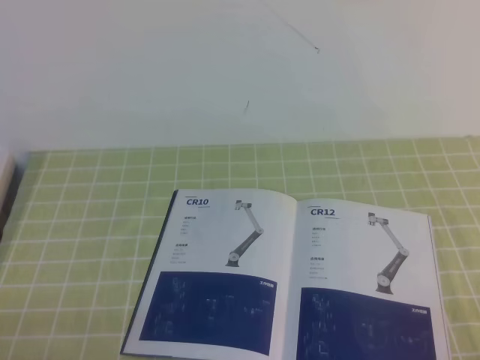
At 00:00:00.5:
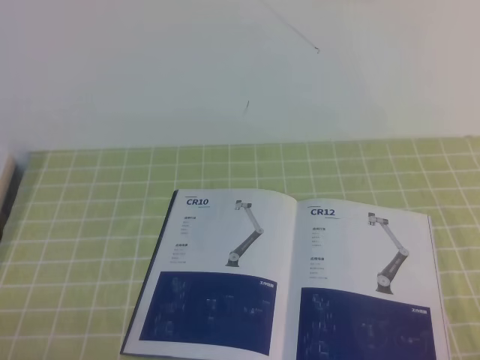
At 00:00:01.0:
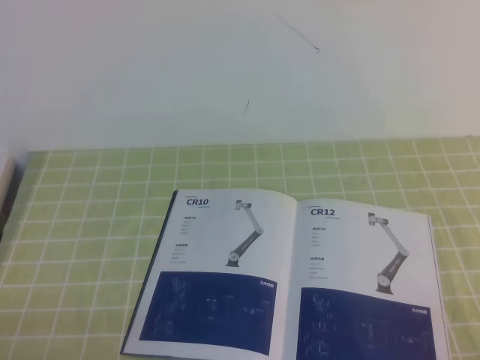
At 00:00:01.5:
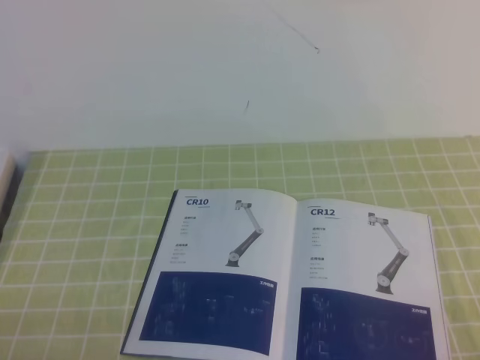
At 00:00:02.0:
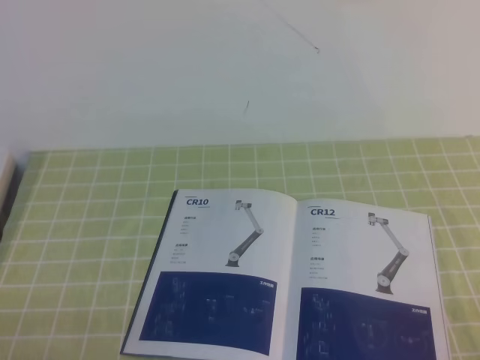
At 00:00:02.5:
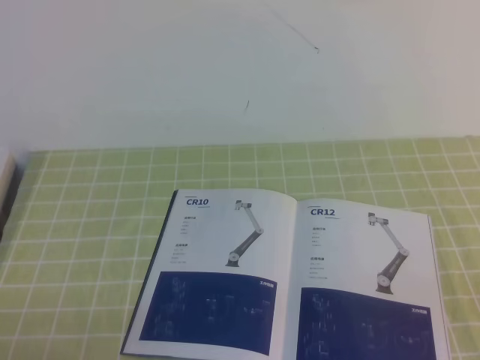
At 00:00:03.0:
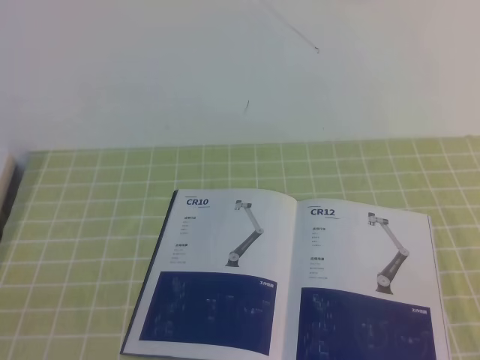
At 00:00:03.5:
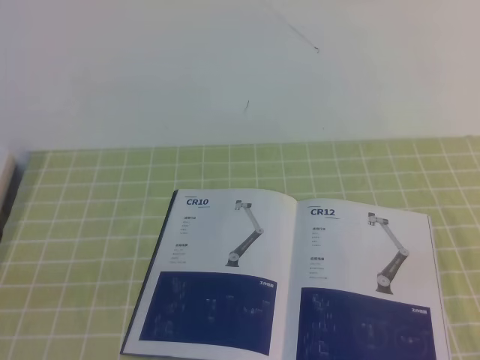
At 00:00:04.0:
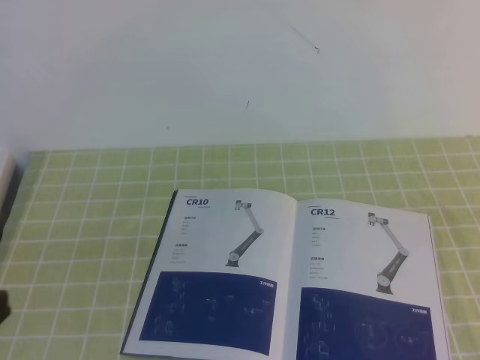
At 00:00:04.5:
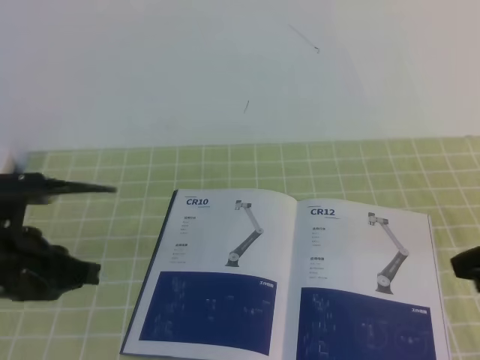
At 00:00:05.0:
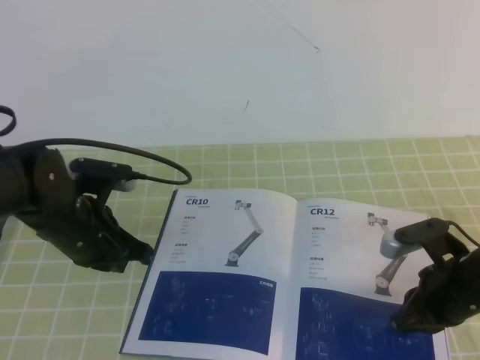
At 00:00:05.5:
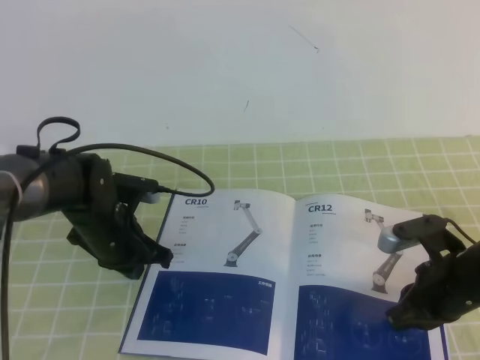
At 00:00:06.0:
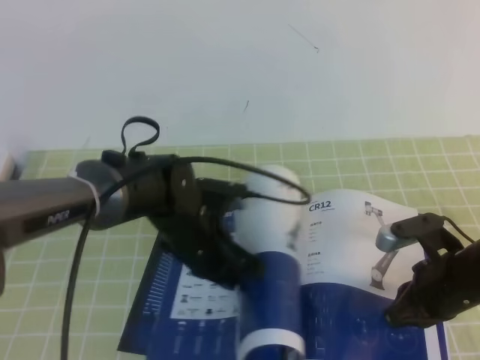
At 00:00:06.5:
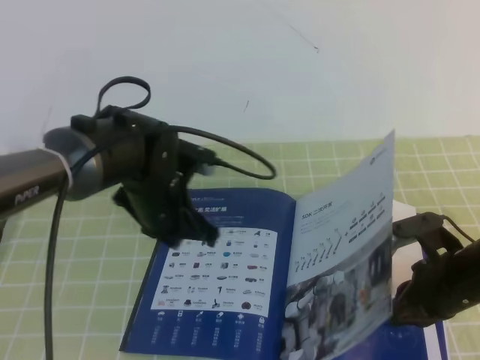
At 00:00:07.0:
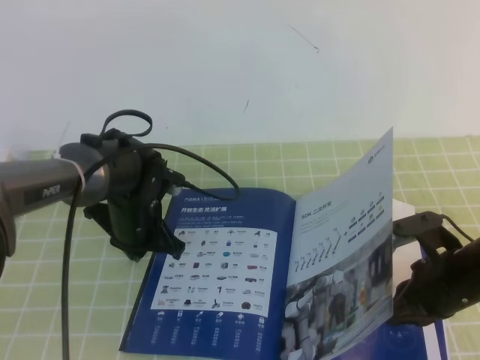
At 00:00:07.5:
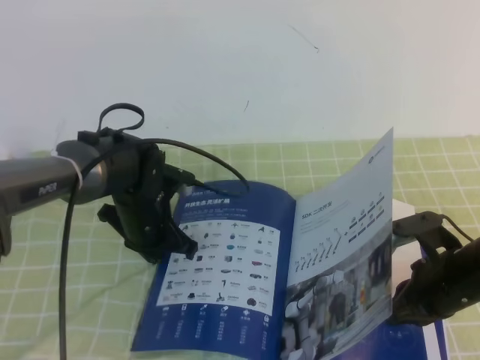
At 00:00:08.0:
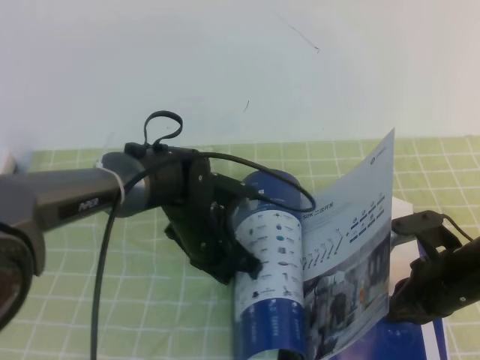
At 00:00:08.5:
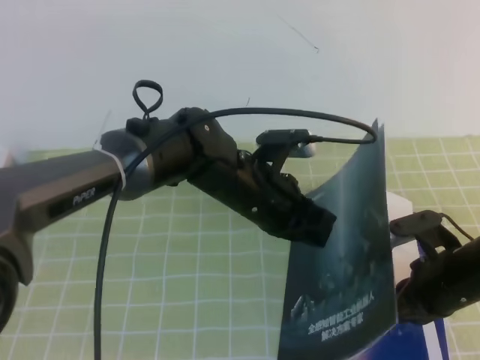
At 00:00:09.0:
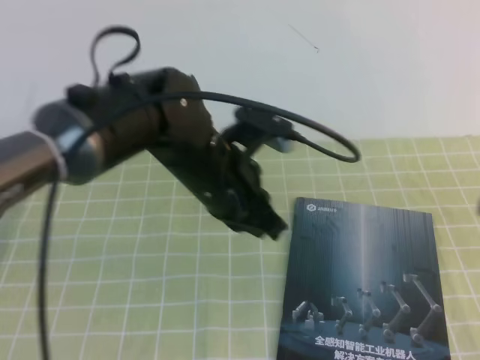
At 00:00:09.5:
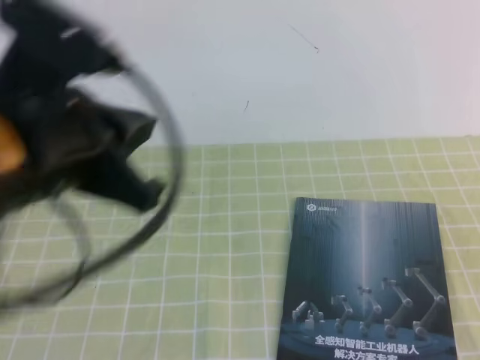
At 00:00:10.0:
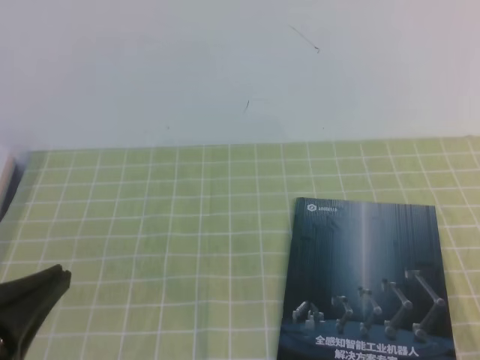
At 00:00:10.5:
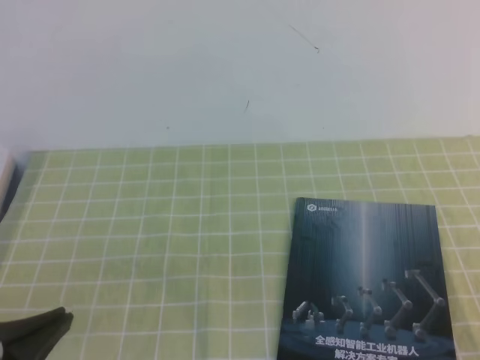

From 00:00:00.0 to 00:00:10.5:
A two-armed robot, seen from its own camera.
Task of the whole recording: on the green tablecloth, hold the book with one hand and close it with the other.
From 00:00:04.0 to 00:00:06.5: The left gripper moves forward, to the right and downward, approximately 30 cm, while the right gripper is displaced downward, forward and to the left by some 30 cm.
From 00:00:06.5 to 00:00:08.5: The left gripper heads to the right, covering some 10 cm.
From 00:00:08.5 to 00:00:10.5: The left gripper is displaced backward and to the left by roughly 35 cm, while the right gripper travels backward and upward by approximately 25 cm.

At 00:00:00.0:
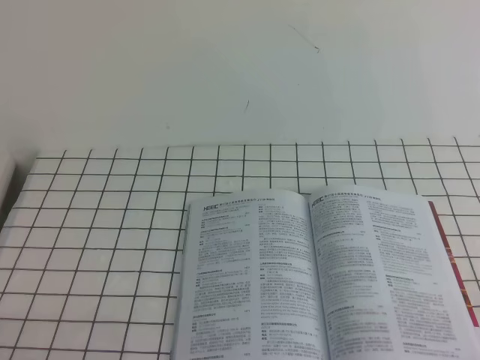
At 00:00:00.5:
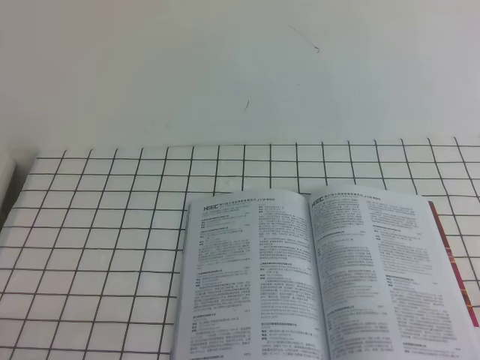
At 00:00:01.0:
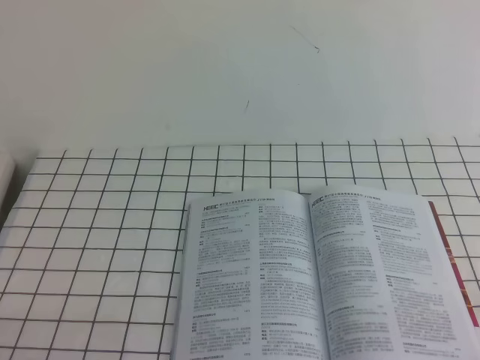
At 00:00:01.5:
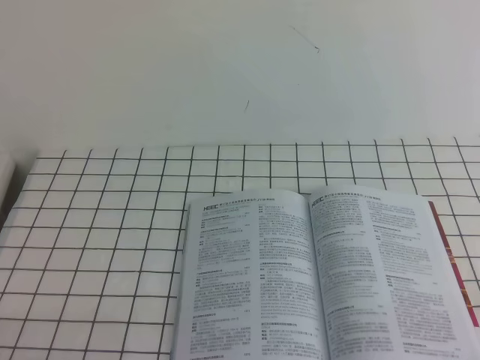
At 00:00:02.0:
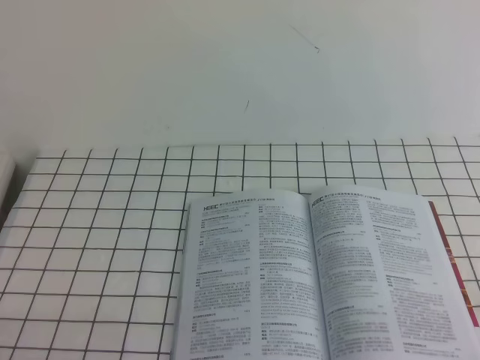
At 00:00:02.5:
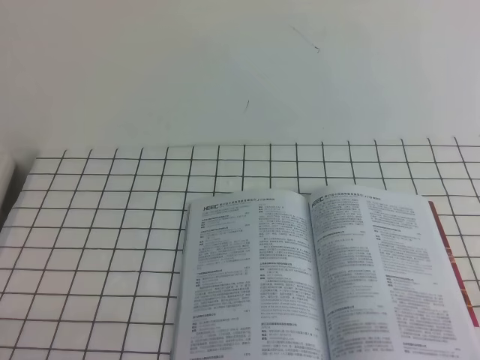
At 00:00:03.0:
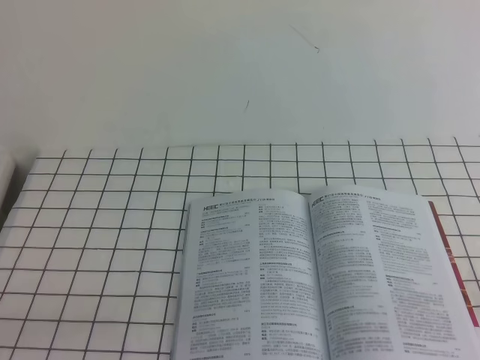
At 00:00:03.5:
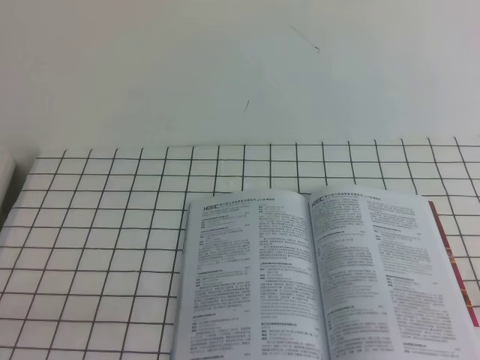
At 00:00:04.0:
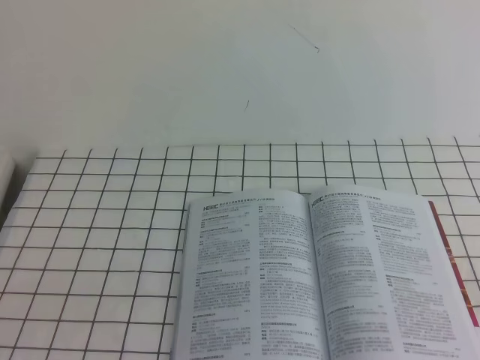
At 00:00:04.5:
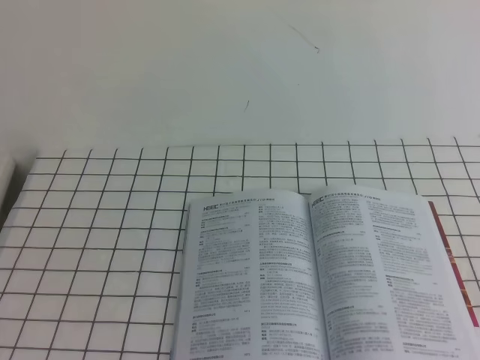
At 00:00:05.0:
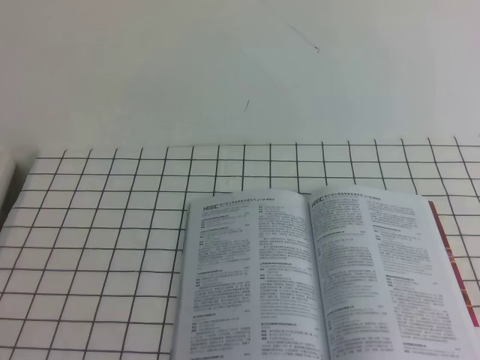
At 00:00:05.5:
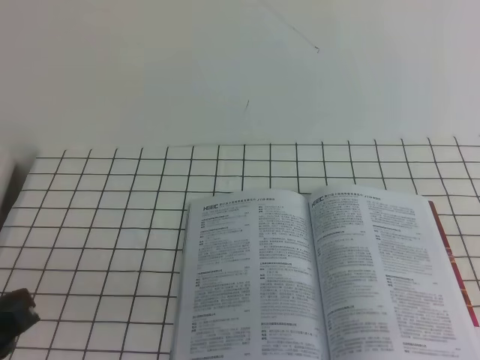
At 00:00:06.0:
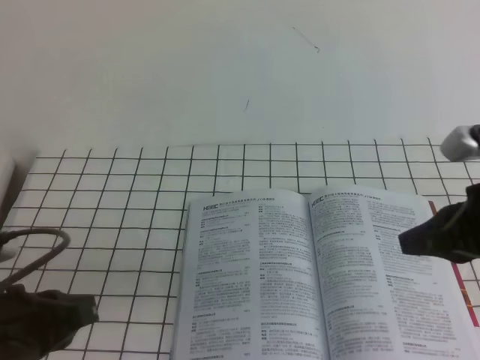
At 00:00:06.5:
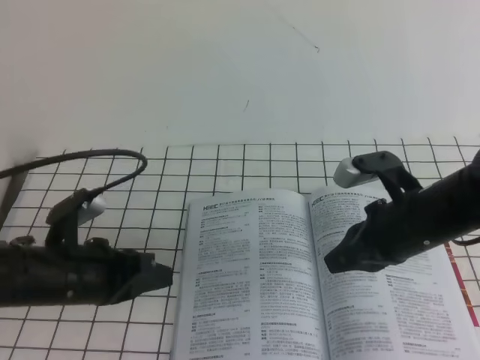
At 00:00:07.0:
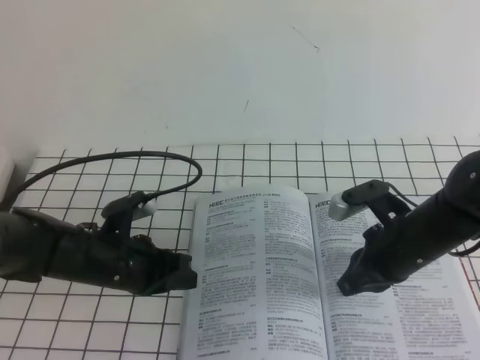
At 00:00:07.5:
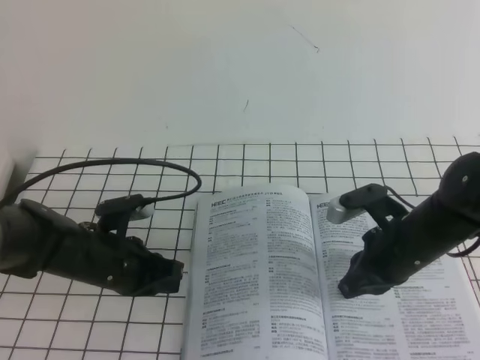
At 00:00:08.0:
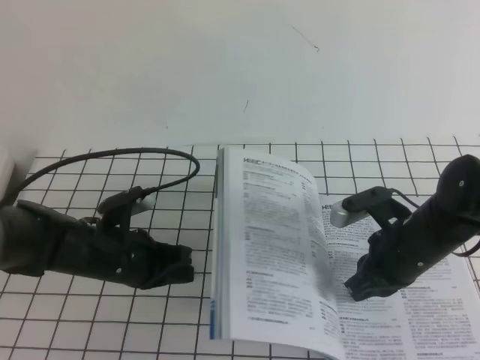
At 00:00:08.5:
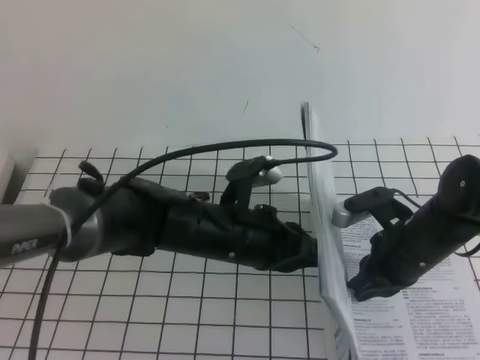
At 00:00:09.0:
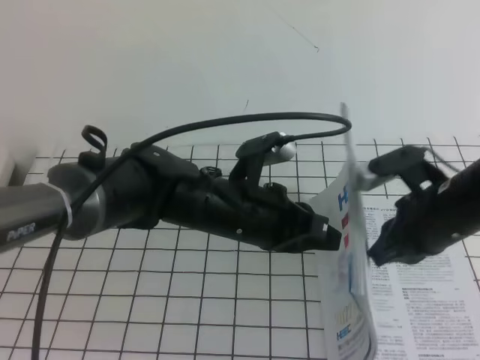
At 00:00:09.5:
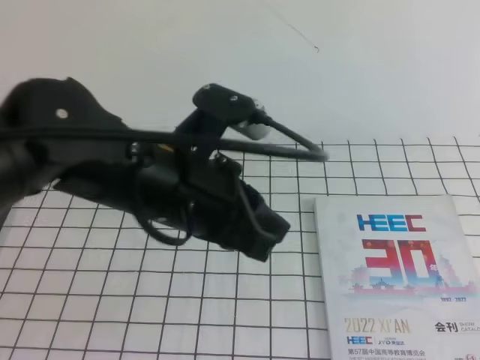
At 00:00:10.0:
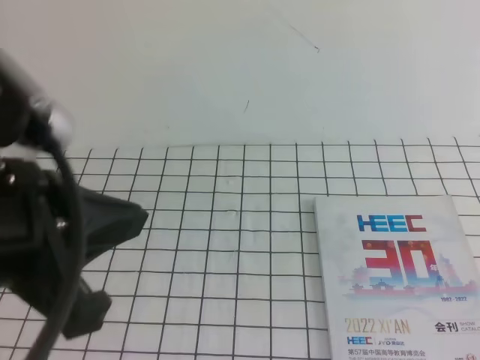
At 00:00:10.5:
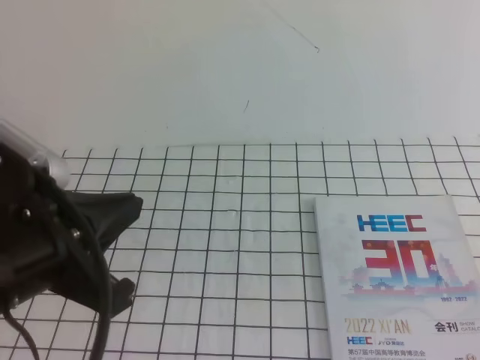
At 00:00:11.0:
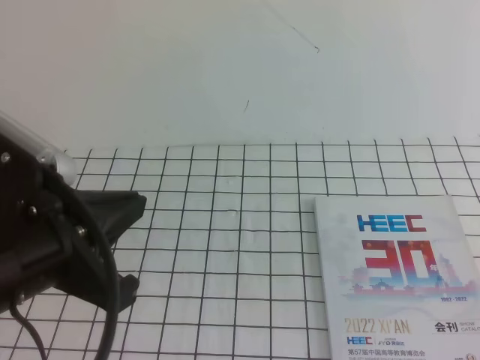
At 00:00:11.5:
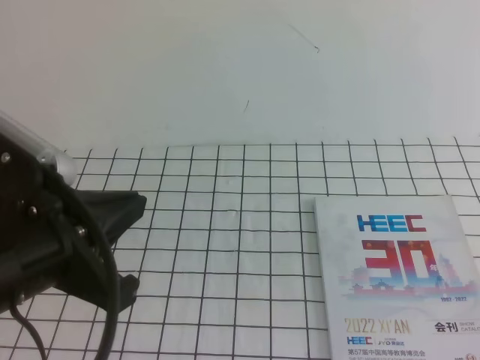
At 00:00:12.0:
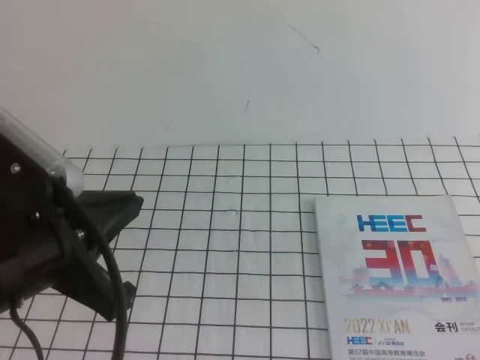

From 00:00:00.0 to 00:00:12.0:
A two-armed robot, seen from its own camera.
Task of the whole recording: on the white tablecloth, hold the book with one hand and close it with the other.
From 00:00:04.0 to 00:00:06.0: The left gripper travels forward by roughly 10 cm, while the right gripper heads forward, covering approximately 20 cm.
From 00:00:06.0 to 00:00:08.0: The left gripper goes some 20 cm forward and downward, while the right gripper is displaced downward, forward and to the left by approximately 15 cm.
From 00:00:08.0 to 00:00:10.0: The right gripper travels backward, upward and to the right by approximately 35 cm, while the left gripper heads upward and backward, covering roughly 30 cm.
From 00:00:10.0 to 00:00:12.0: The left gripper changes place by about 5 cm.

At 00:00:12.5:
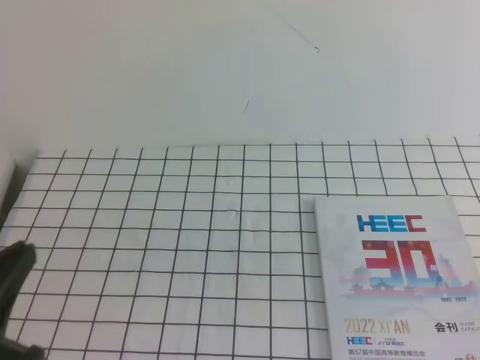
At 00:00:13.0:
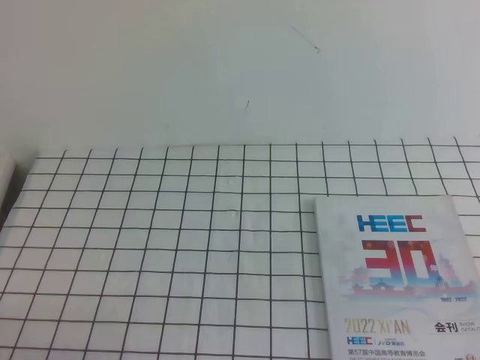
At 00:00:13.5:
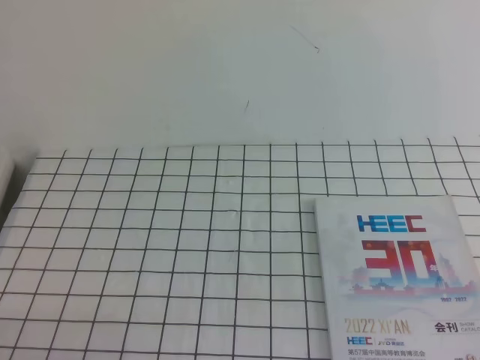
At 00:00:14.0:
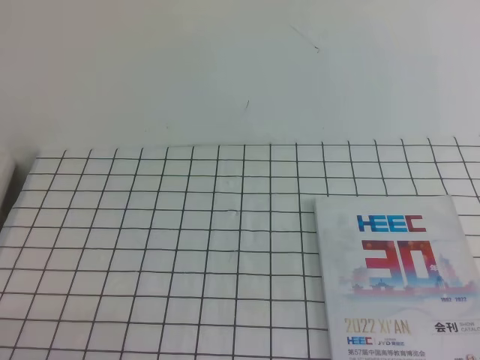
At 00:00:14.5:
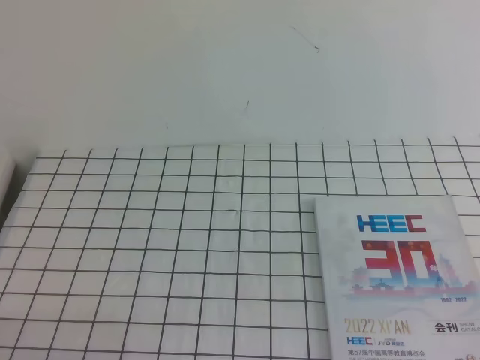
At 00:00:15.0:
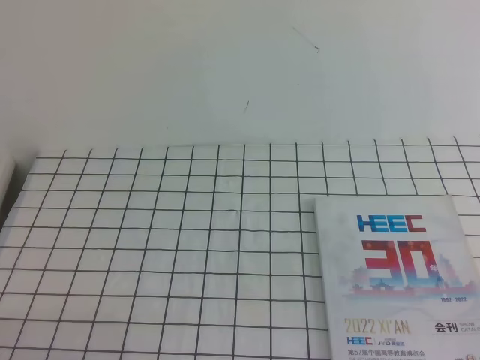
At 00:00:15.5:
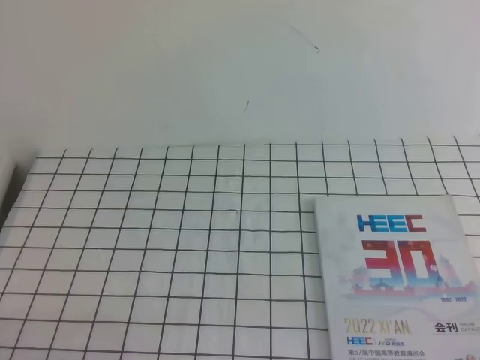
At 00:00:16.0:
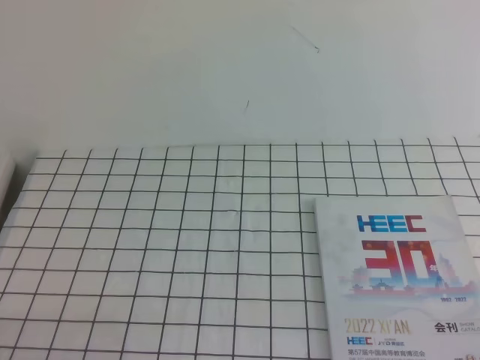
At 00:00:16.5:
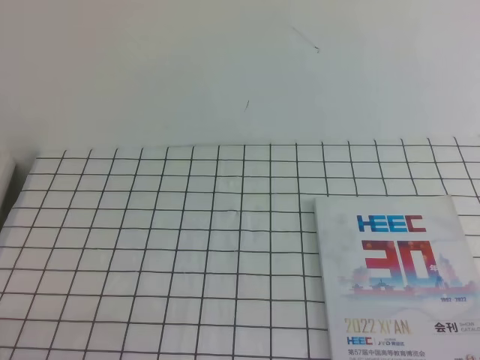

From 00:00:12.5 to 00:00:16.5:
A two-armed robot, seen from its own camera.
Task of the whole recording: on the white tablecloth, hold the book with one hand and close it with the other.
Step, from 00:00:12.5 to 00:00:16.5: Close the open book.
From 00:00:12.5 to 00:00:14.5: The left gripper is displaced downward and backward by roughly 15 cm.
